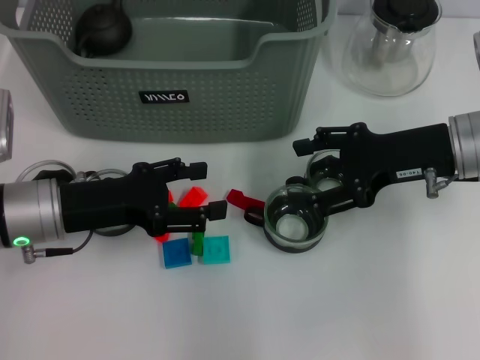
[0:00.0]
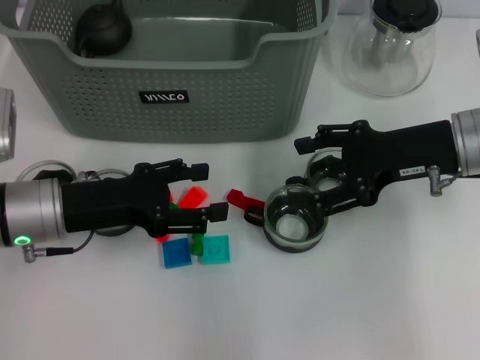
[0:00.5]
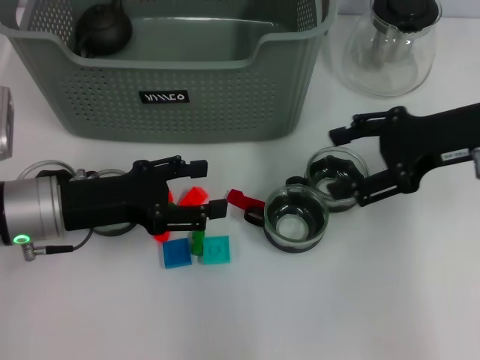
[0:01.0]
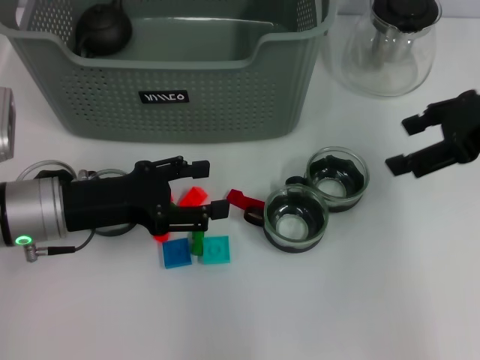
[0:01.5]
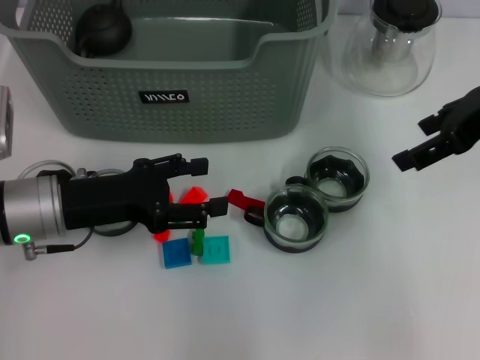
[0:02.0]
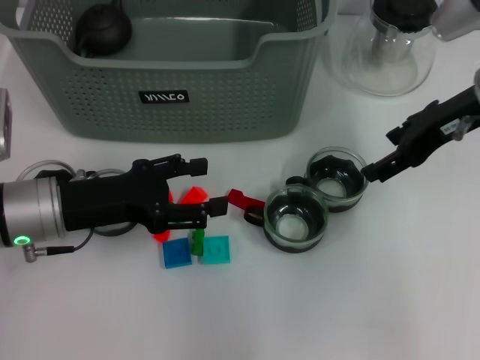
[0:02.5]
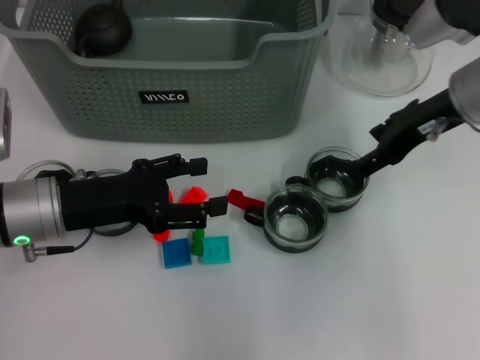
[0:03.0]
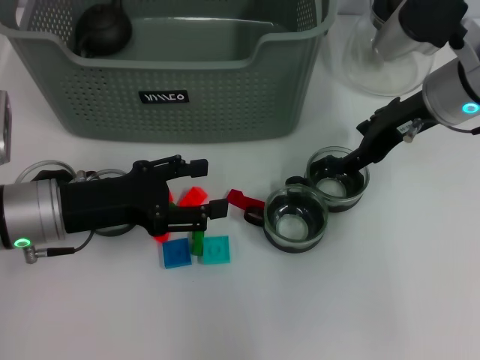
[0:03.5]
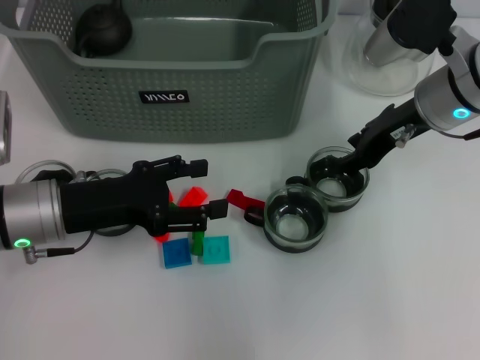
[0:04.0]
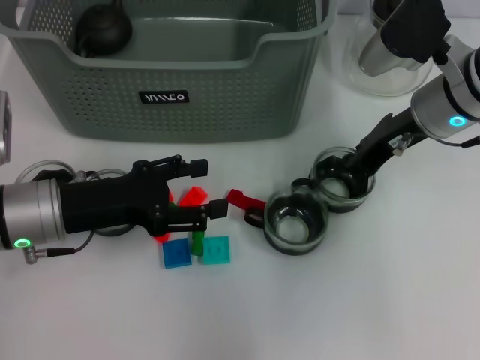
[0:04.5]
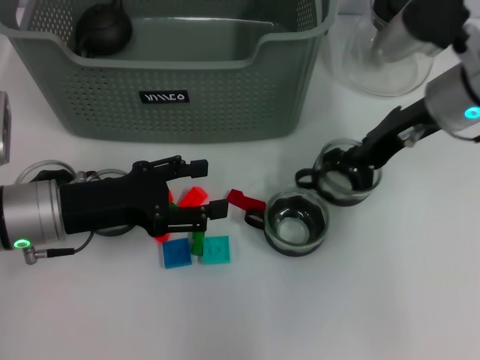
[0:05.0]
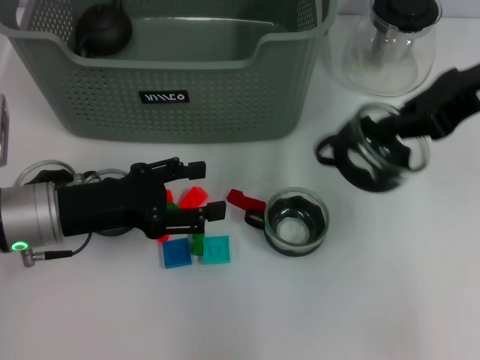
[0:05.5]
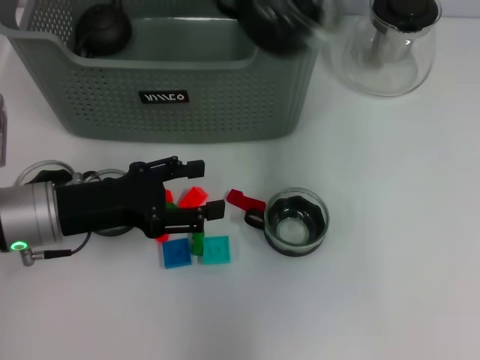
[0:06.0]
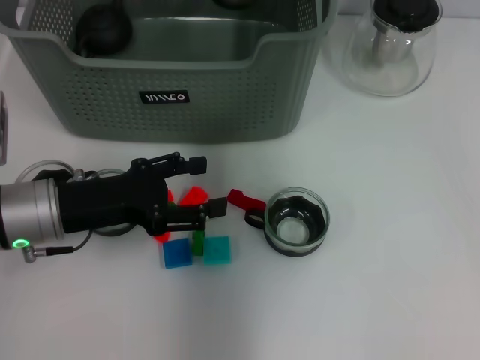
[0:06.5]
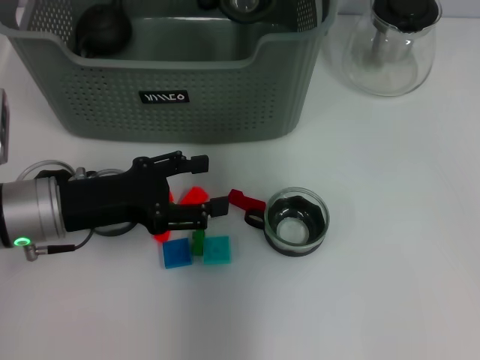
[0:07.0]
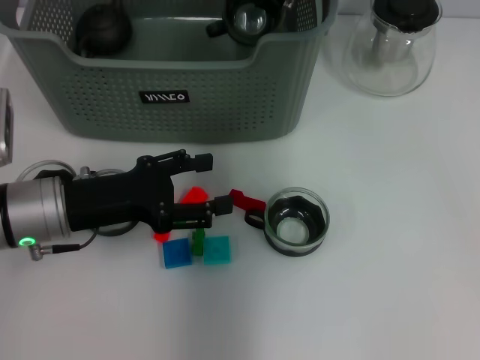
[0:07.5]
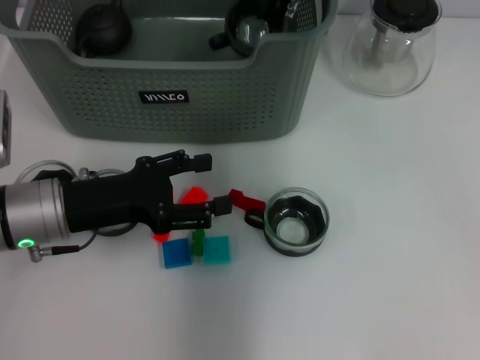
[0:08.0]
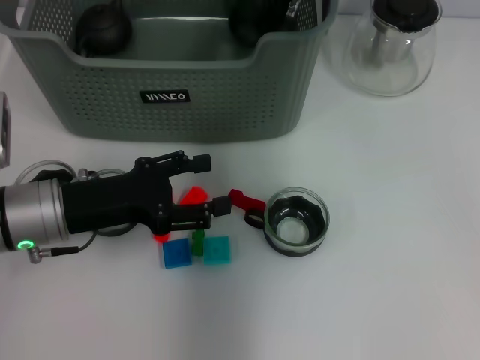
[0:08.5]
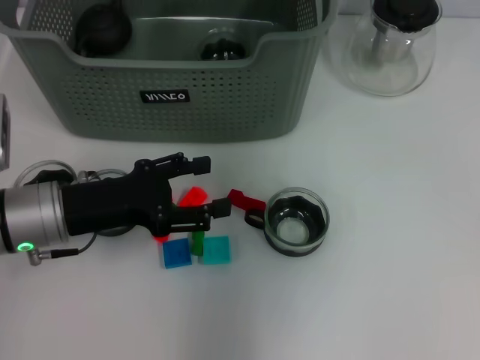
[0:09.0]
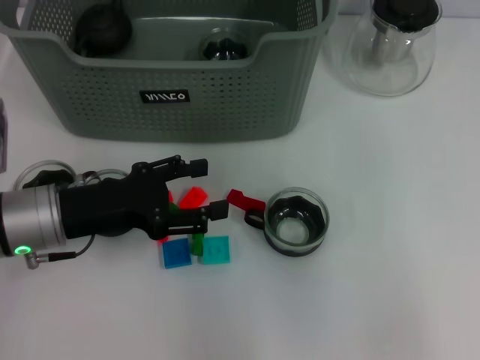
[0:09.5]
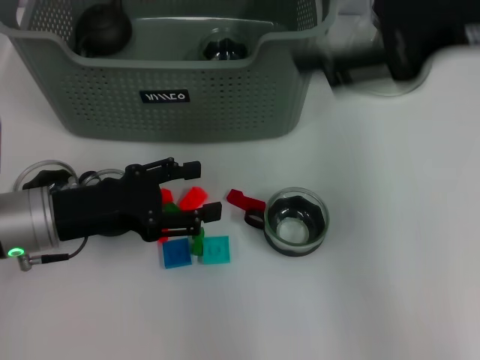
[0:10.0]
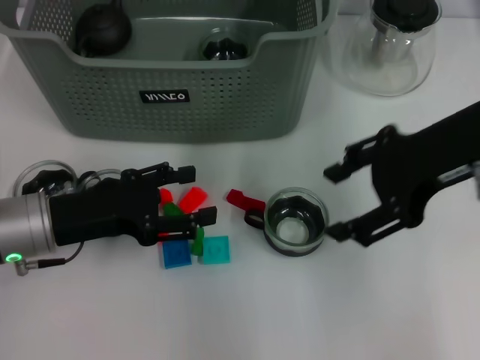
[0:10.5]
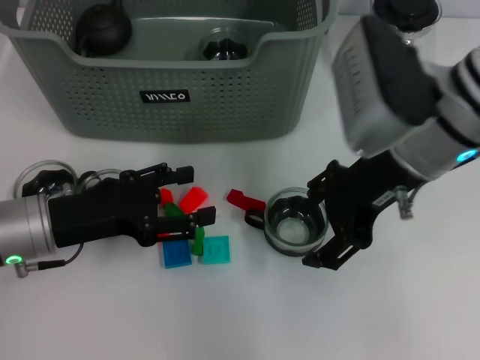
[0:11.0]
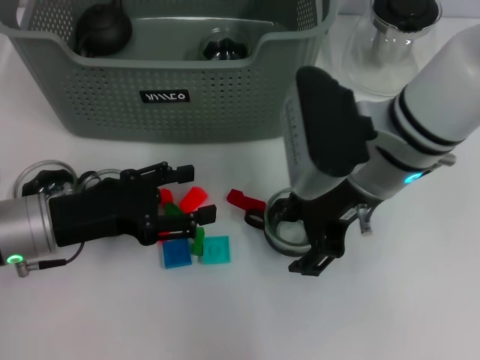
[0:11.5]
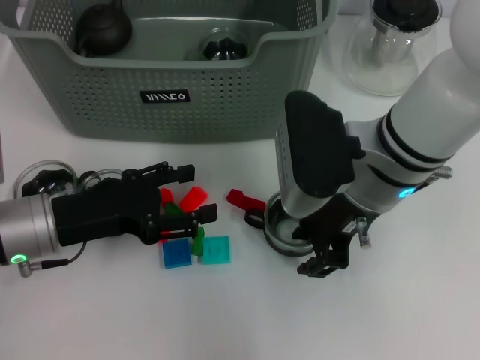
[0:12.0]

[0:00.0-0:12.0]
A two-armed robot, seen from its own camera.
Task of the whole recording: pick up the teacup on the table and place it into the storage bin, pick up the block on the table and place it into the storage bin.
Step, 0:00.0 to 0:04.5: Grasp the cup with right gripper.
Step, 0:05.0 to 0:08.0: Place the cup in the storage box with right gripper.
0:00.0 to 0:02.0: The right gripper is displaced upward by about 10 cm.
0:02.0 to 0:04.0: The right gripper travels downward and to the left by about 10 cm.
0:04.0 to 0:06.0: The right gripper heads upward, covering approximately 20 cm, and closes its fingers.
0:06.0 to 0:08.0: The right gripper heads downward, to the left and forward, covering some 20 cm.
0:08.0 to 0:10.0: The right gripper heads backward, to the right and upward, covering some 25 cm, and opens up.
0:10.0 to 0:12.0: The right gripper heads downward and to the left, covering approximately 20 cm.

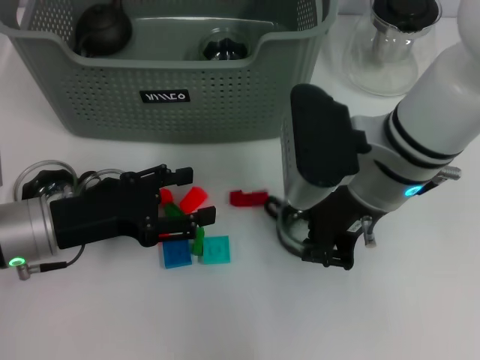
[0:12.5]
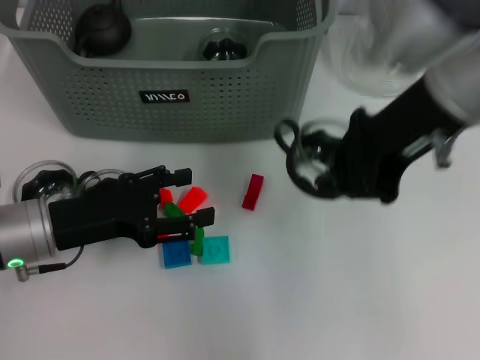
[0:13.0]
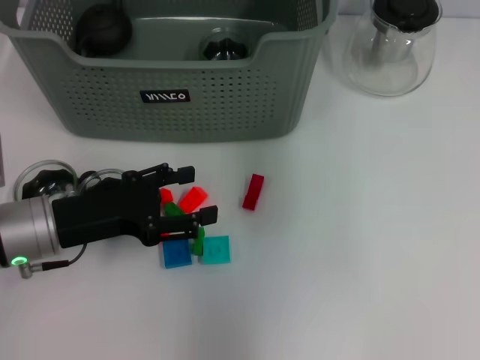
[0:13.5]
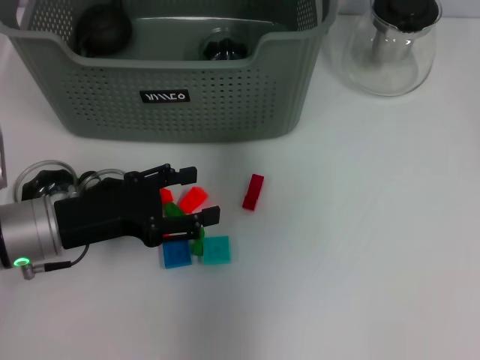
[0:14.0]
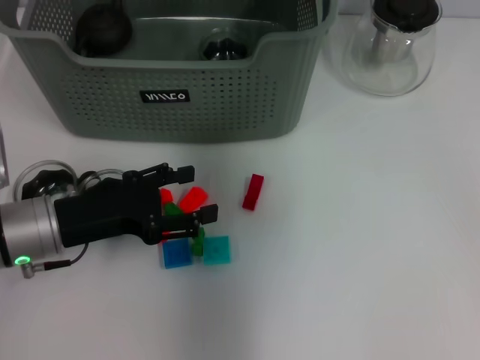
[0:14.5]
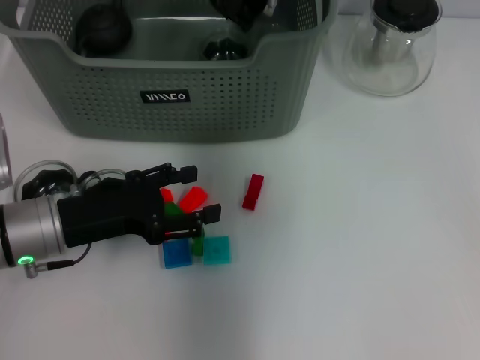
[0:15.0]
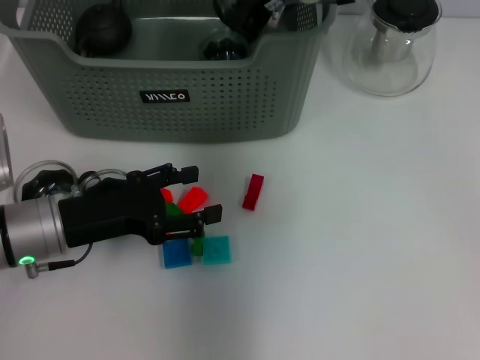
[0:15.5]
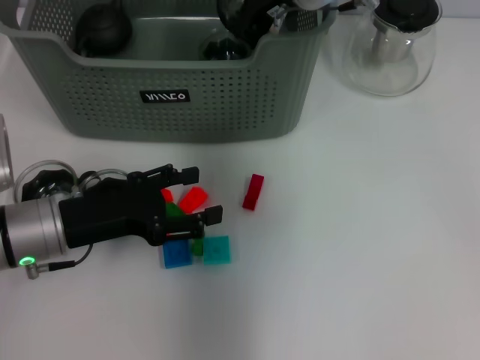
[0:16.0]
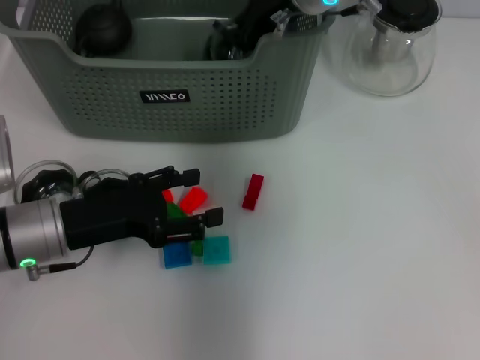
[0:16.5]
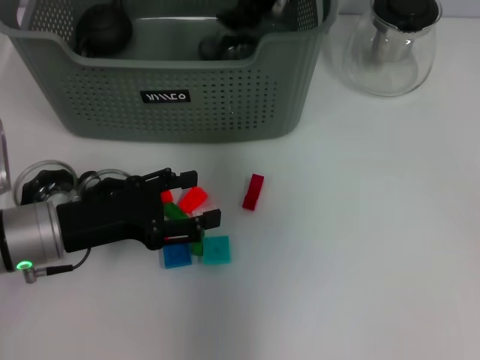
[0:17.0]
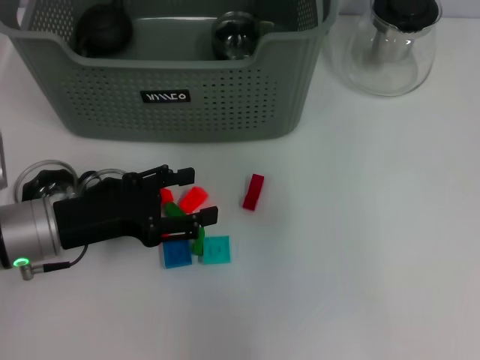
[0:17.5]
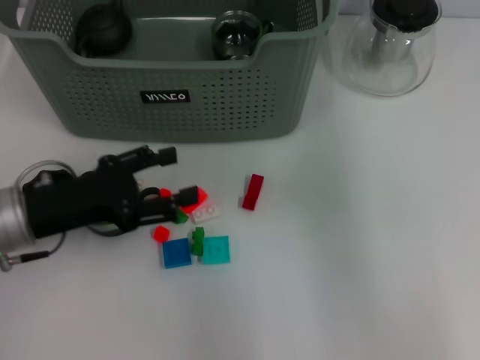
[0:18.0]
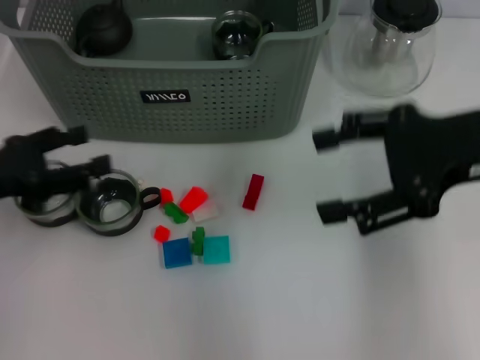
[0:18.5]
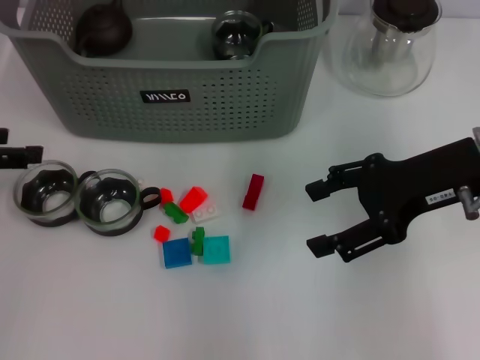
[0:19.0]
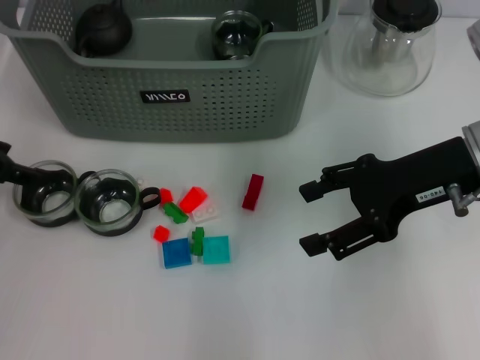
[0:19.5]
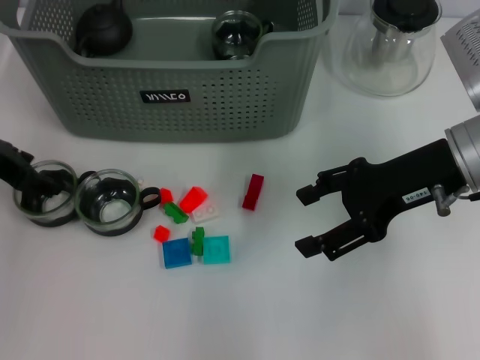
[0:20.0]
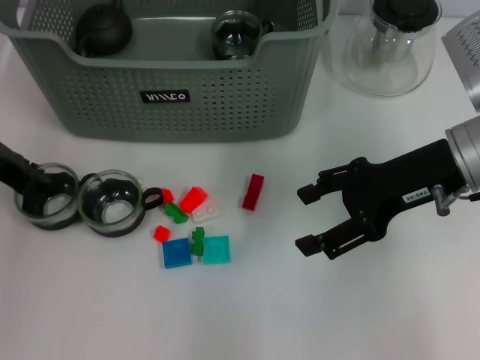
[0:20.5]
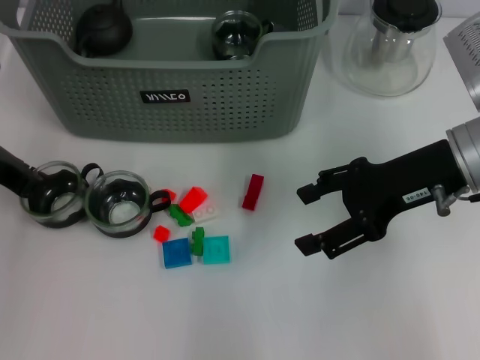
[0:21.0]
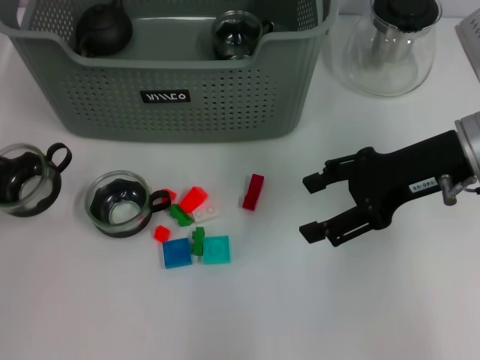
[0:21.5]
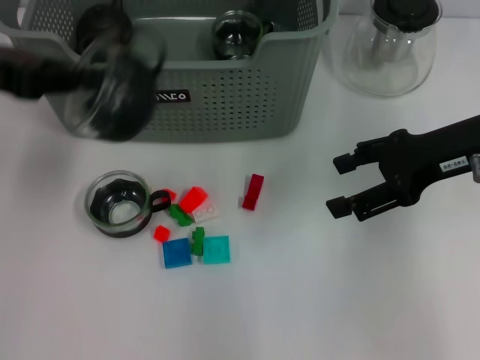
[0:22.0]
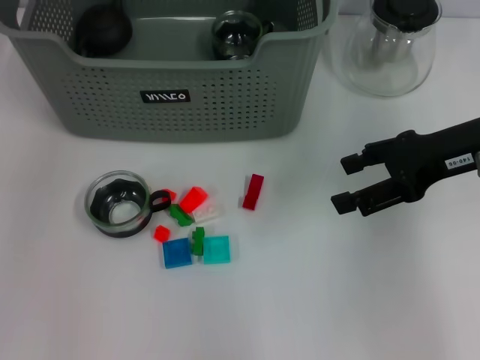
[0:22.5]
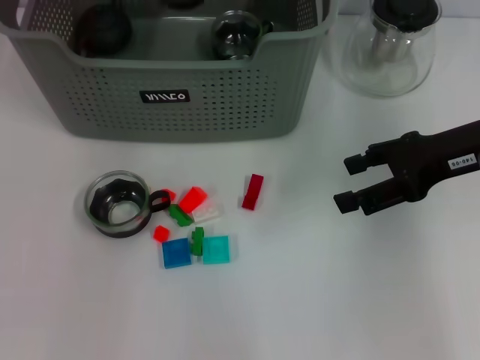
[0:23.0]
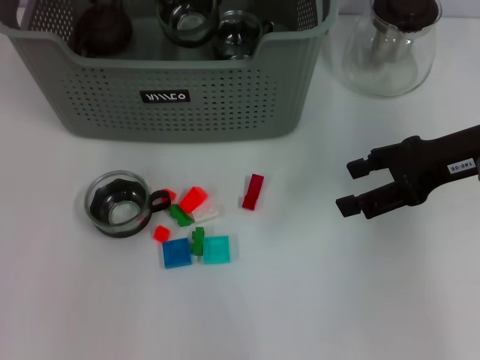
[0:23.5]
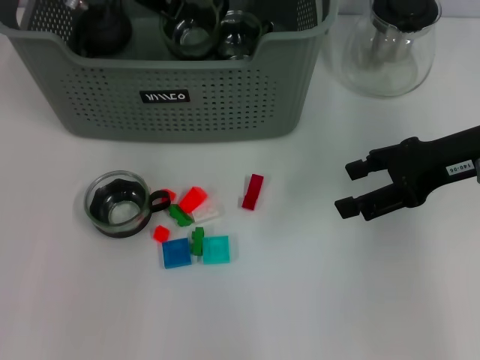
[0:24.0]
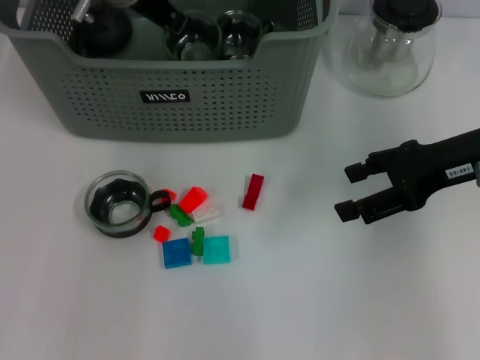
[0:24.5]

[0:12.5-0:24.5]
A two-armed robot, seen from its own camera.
Task of the whole recording: pick up the teacup on the table and place it into the storage bin, pick up the block on the table and place it into the storage bin.
Step, 0:13.0 to 0:17.0: Place the cup in the storage box with right gripper.
Step, 0:17.5 to 0:20.5: Grasp the cup with left gripper.
0:12.5 to 0:14.5: The right gripper moves forward and upward, approximately 20 cm.
0:14.5 to 0:16.5: There are only small adjustments of the grippers.
0:16.5 to 0:18.5: The right gripper travels to the right and backward by approximately 25 cm, and opens; the left gripper travels to the left and upward by some 10 cm.
0:18.5 to 0:20.5: The right gripper heads downward, covering some 5 cm; the left gripper shifts some 10 cm forward, and closes its fingers.
0:20.5 to 0:22.5: The left gripper heads upward, forward and to the right, covering roughly 20 cm, and closes up.
0:22.5 to 0:24.5: The left gripper moves downward, to the right and forward, roughly 15 cm.

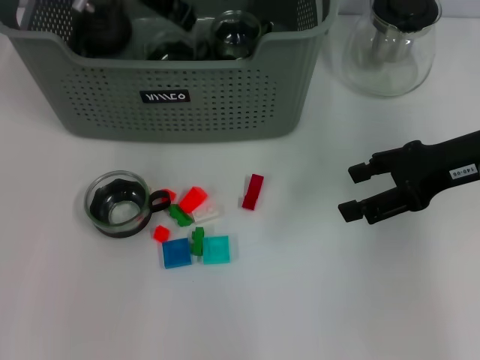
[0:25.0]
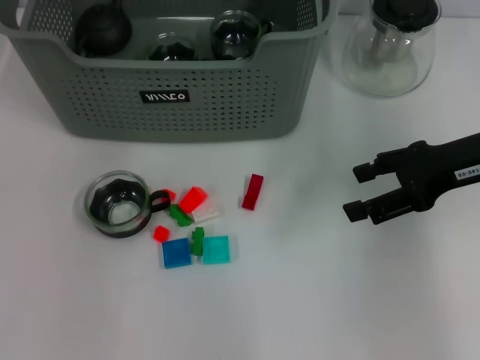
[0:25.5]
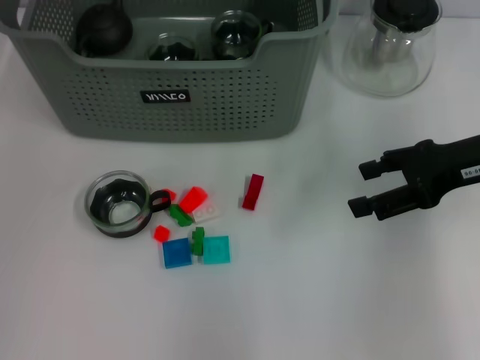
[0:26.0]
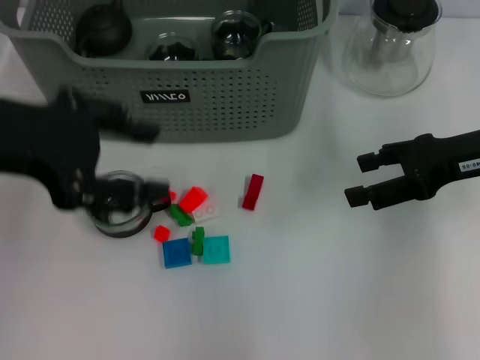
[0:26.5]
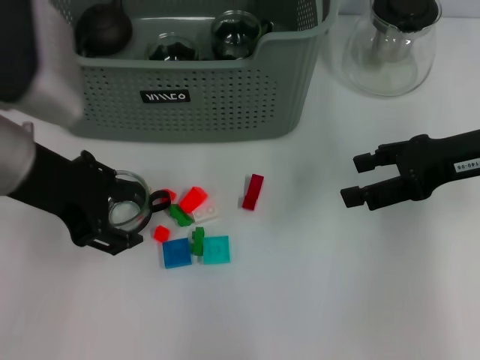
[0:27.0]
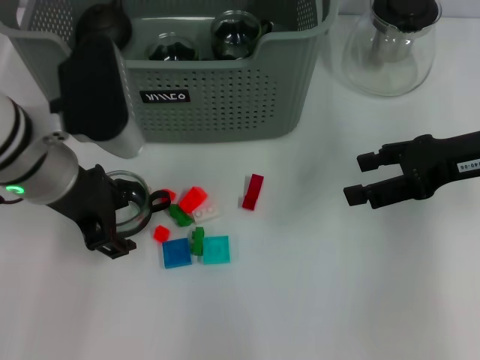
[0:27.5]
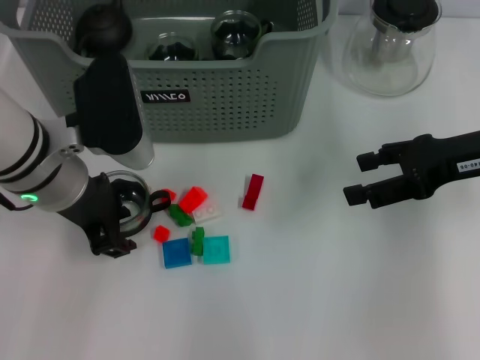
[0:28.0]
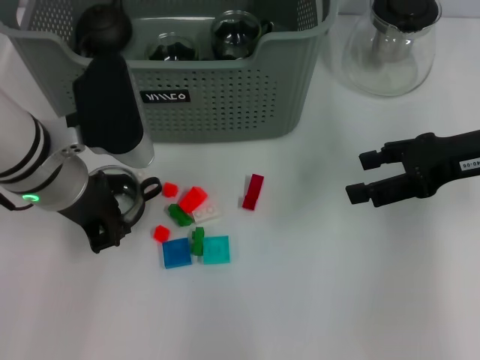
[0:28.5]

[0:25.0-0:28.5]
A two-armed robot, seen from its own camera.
Task of the whole recording: pick up the teacup on the table and place it into the storage bin, pick up the block on the table and place it into the storage bin.
Step, 0:25.5 to 0:28.0: Grasp the cup with left gripper.
0:25.0 to 0:27.0: The left gripper goes about 20 cm backward, and opens up.
0:27.0 to 0:28.5: The left gripper travels downward by roughly 5 cm, and closes.
